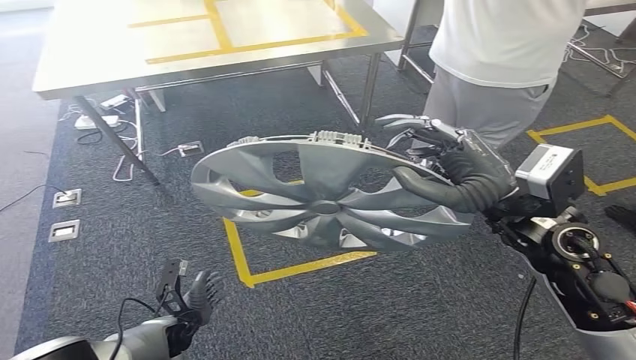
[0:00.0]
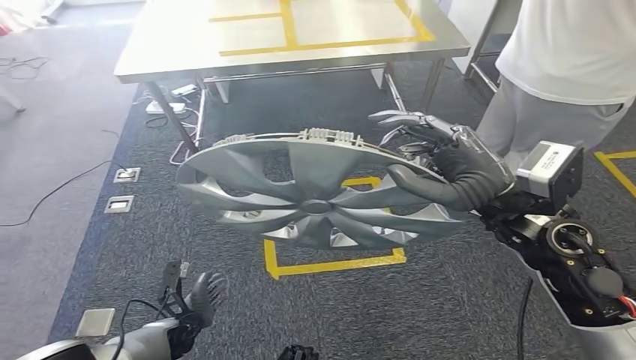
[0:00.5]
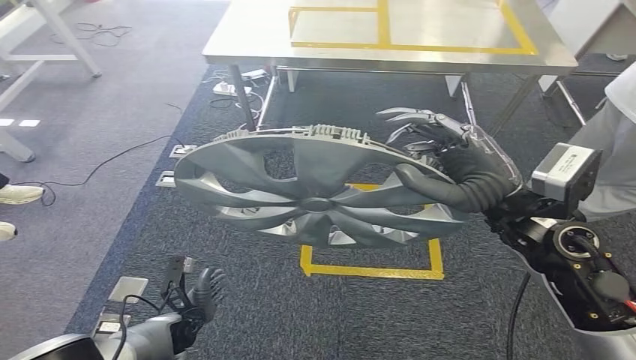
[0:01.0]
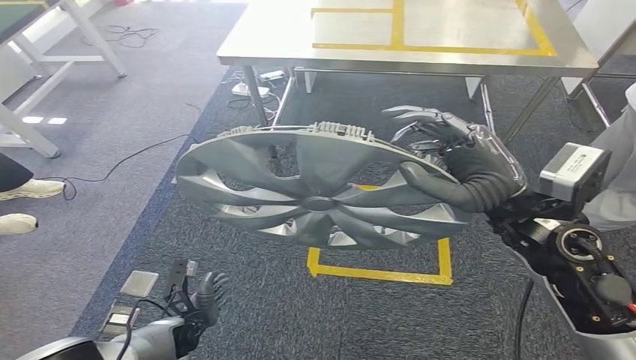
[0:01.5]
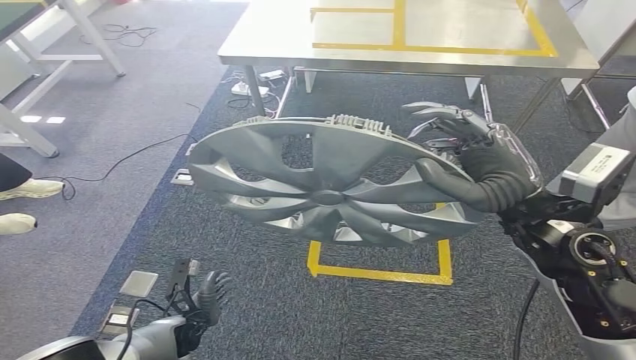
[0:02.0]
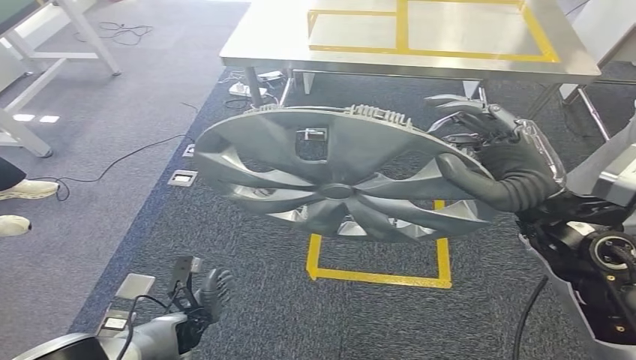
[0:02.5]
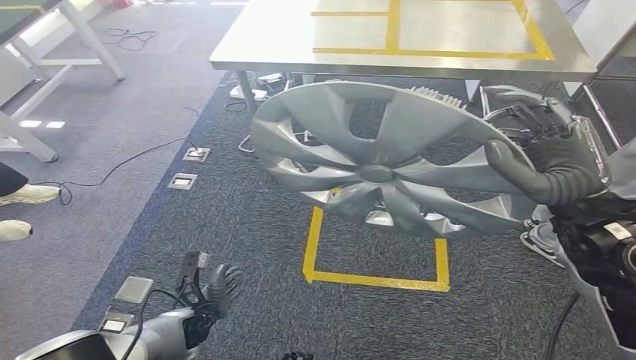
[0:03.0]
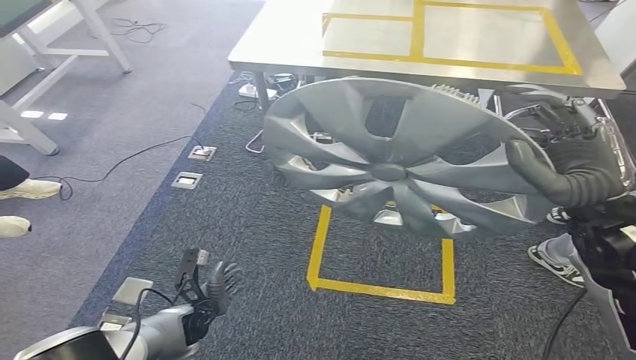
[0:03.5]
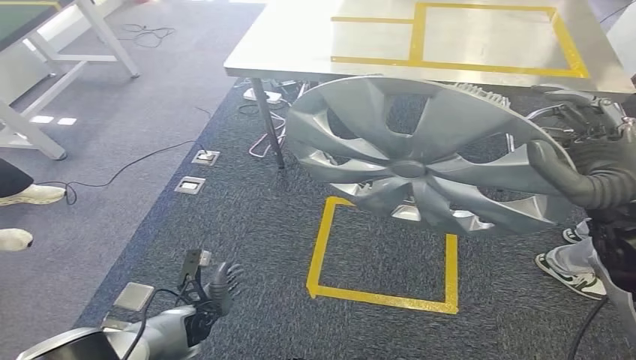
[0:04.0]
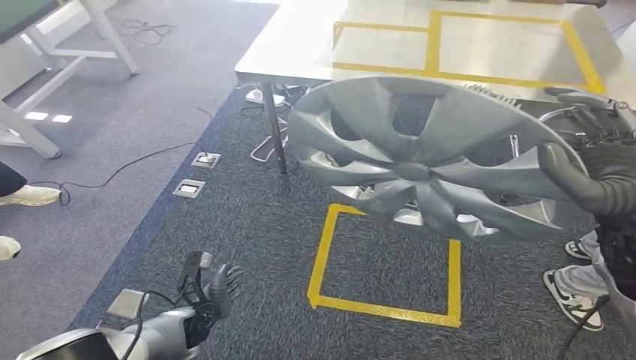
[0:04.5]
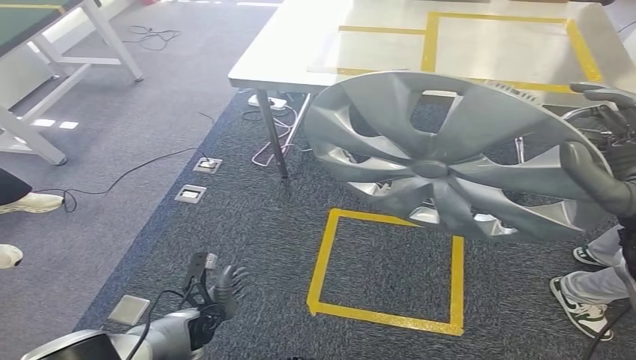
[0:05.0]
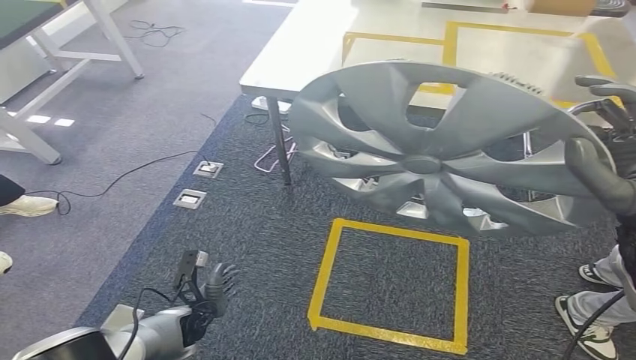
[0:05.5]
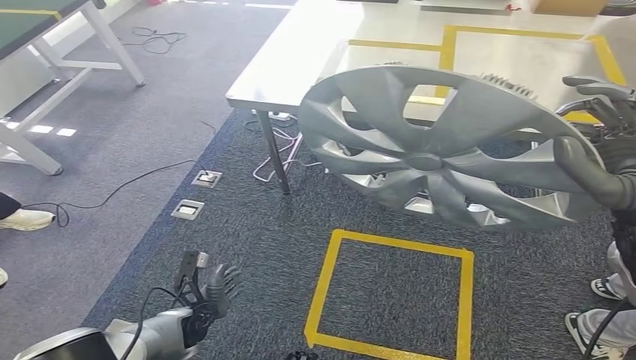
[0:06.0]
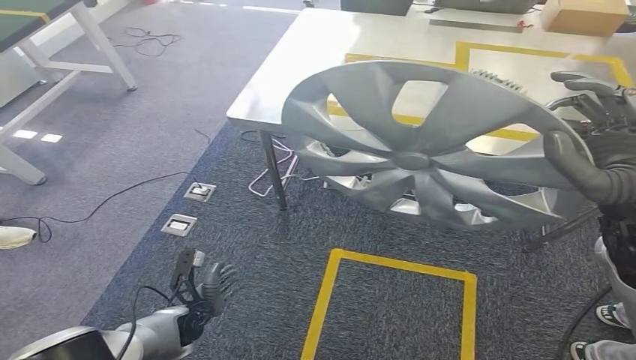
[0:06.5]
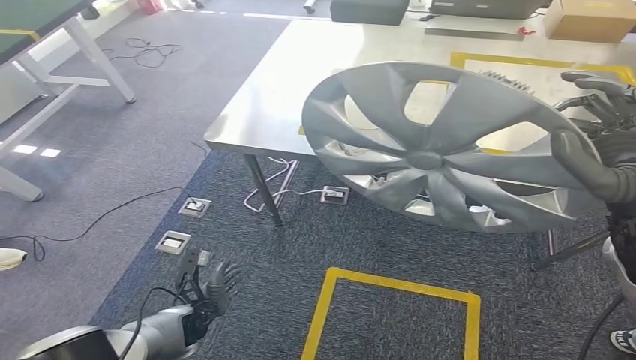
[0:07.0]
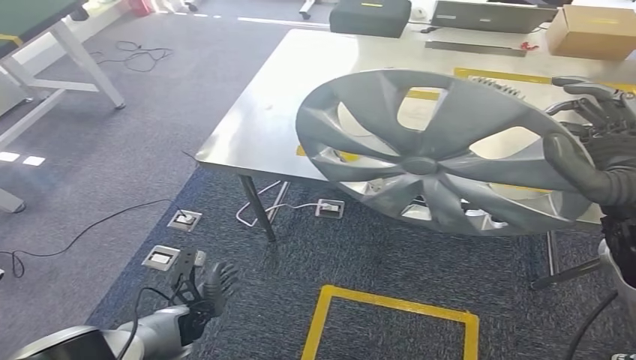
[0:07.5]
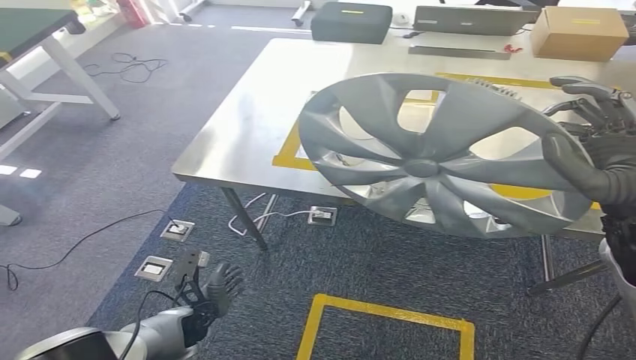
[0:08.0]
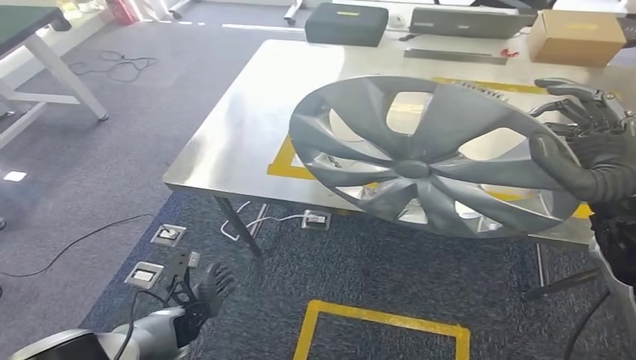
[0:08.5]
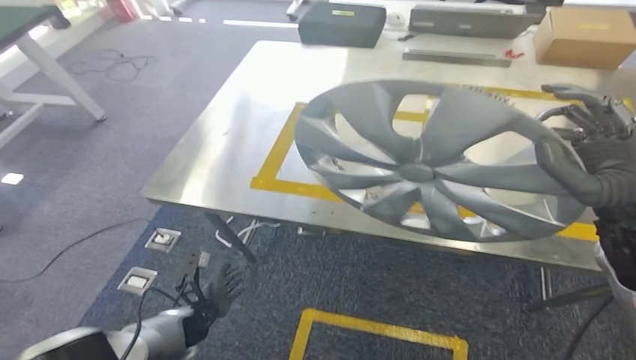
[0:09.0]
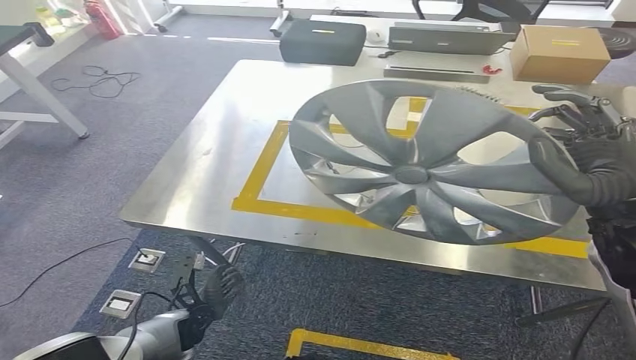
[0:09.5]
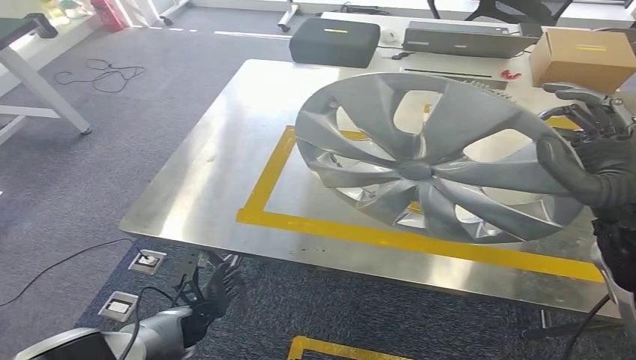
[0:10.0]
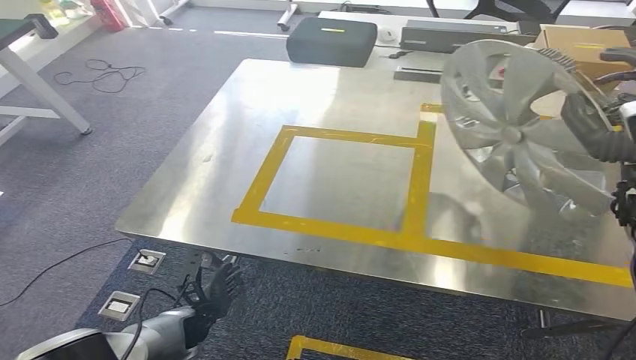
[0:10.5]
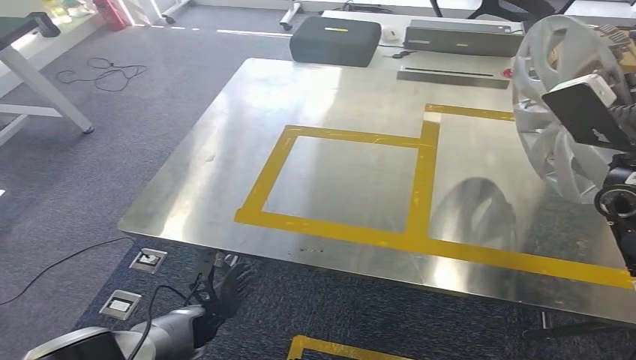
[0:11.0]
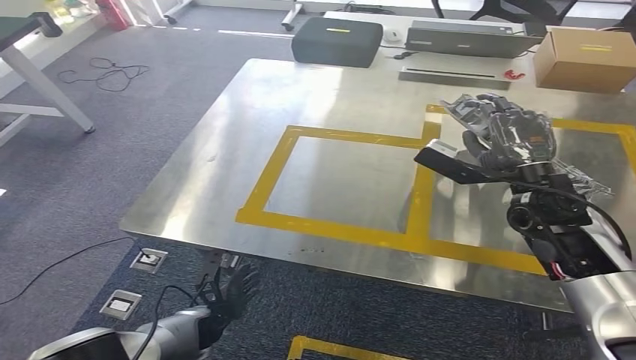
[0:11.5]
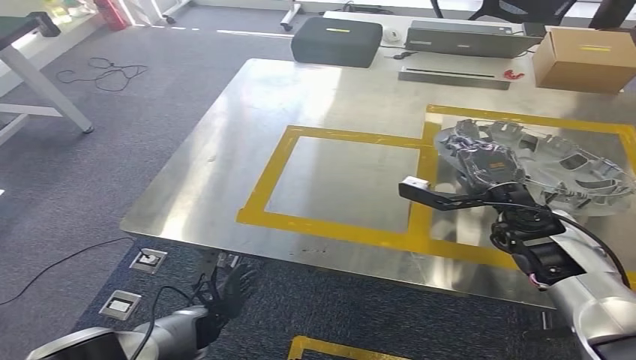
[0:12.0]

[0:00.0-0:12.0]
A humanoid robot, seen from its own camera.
Step, 0:00.0 to 0:10.0: Move the small component to the workbench.

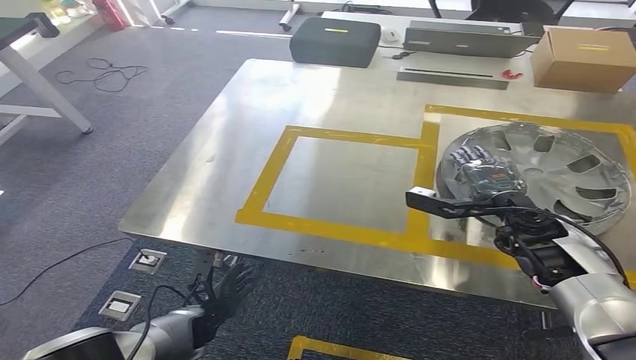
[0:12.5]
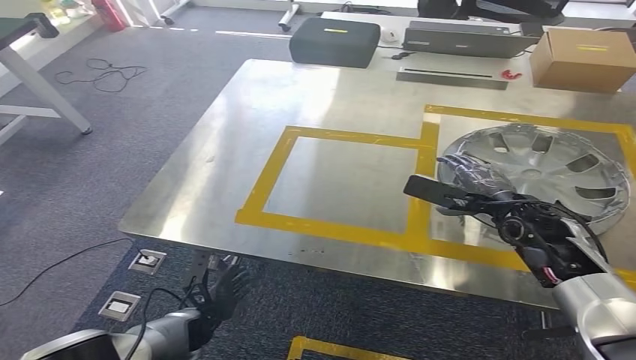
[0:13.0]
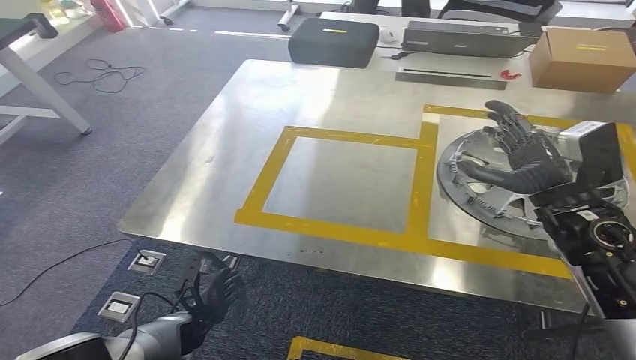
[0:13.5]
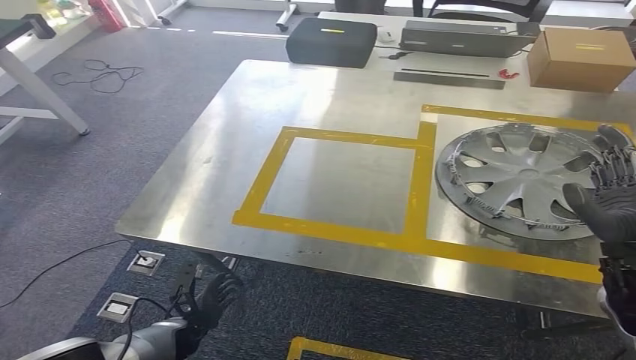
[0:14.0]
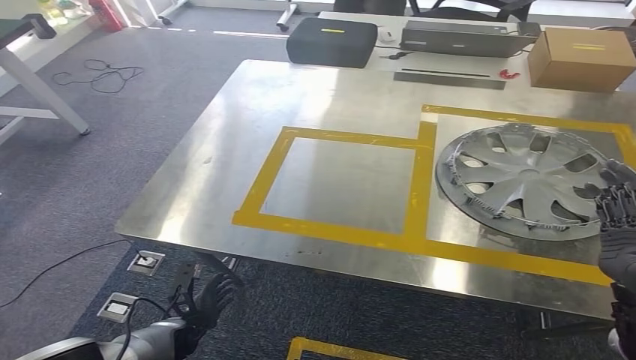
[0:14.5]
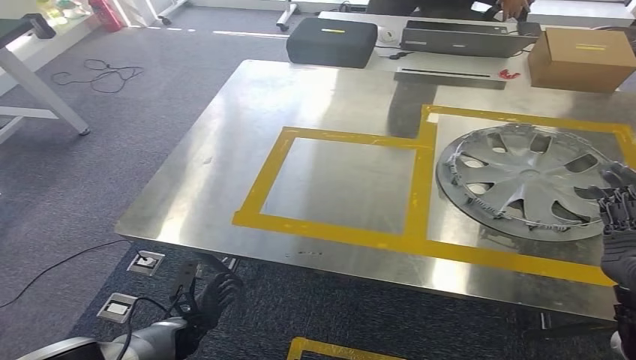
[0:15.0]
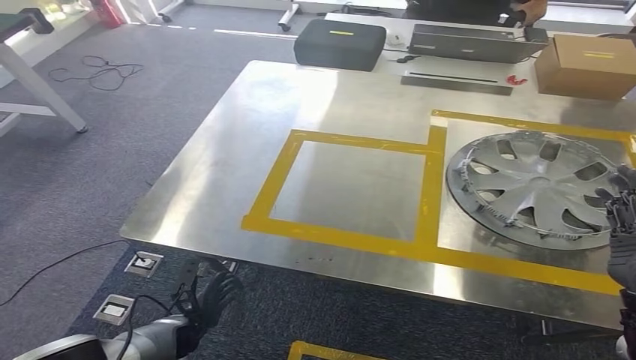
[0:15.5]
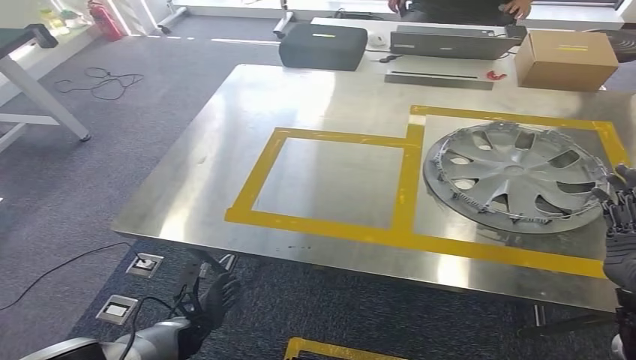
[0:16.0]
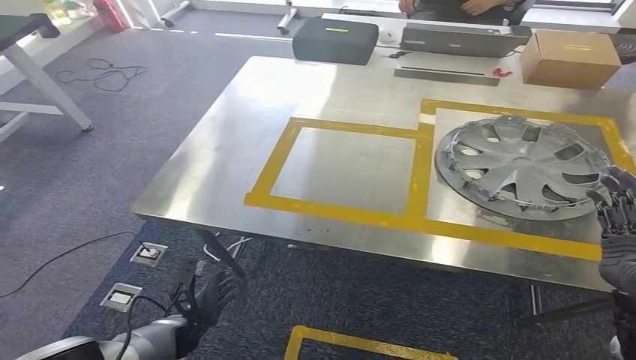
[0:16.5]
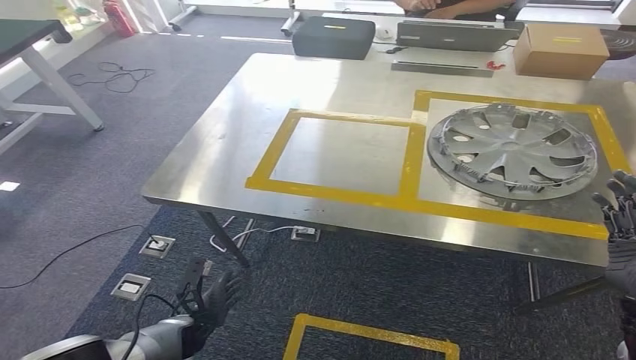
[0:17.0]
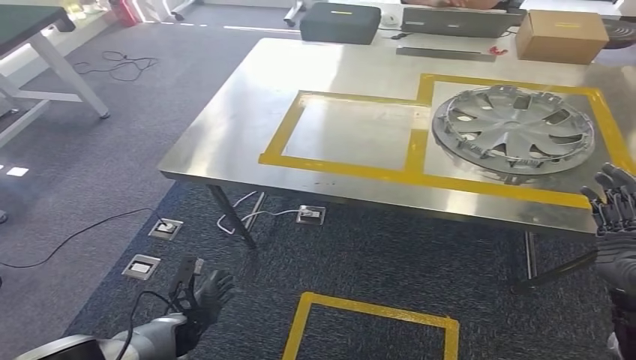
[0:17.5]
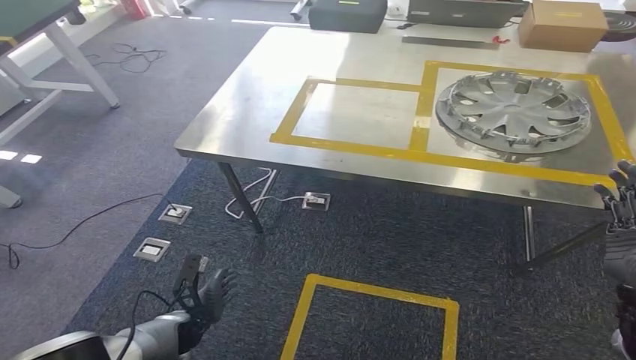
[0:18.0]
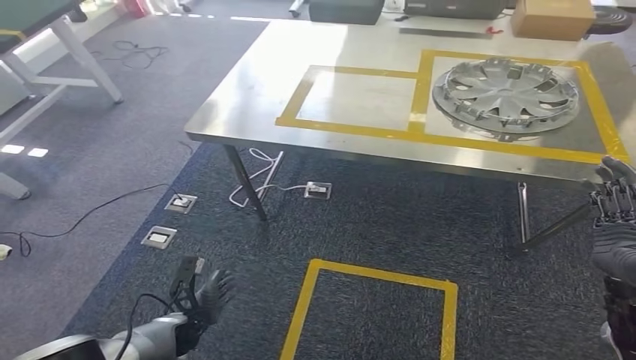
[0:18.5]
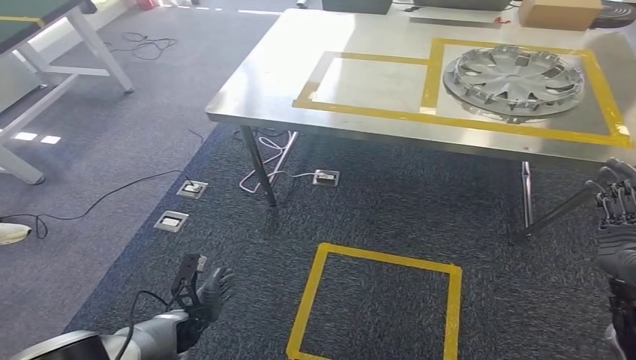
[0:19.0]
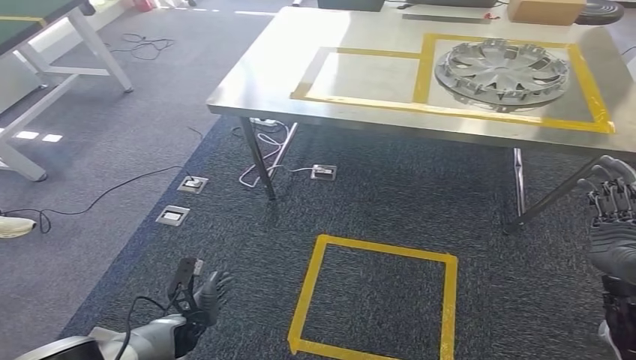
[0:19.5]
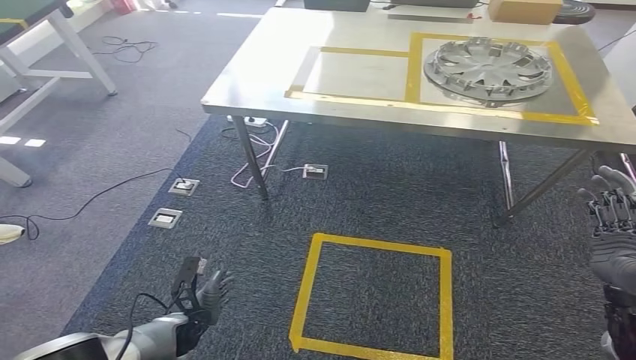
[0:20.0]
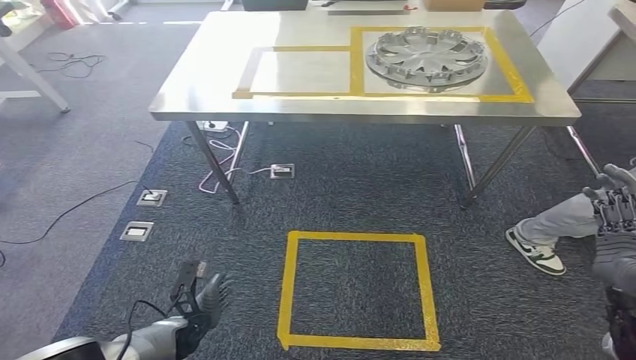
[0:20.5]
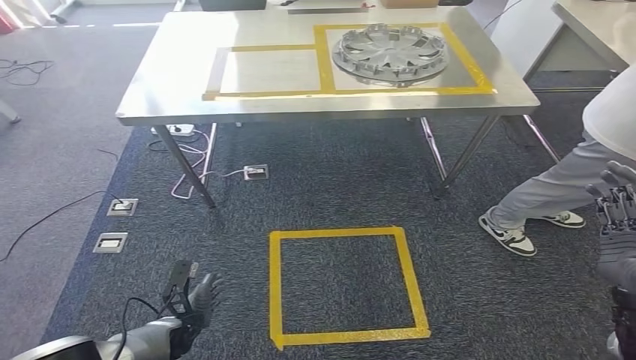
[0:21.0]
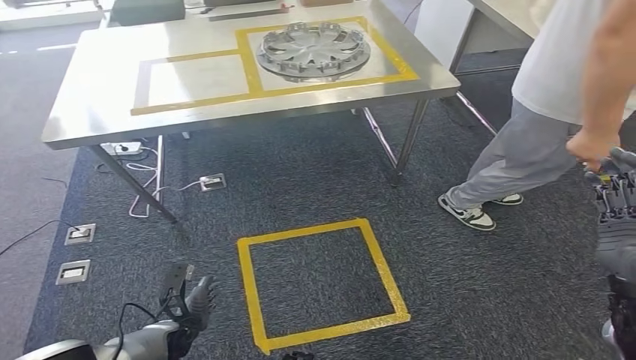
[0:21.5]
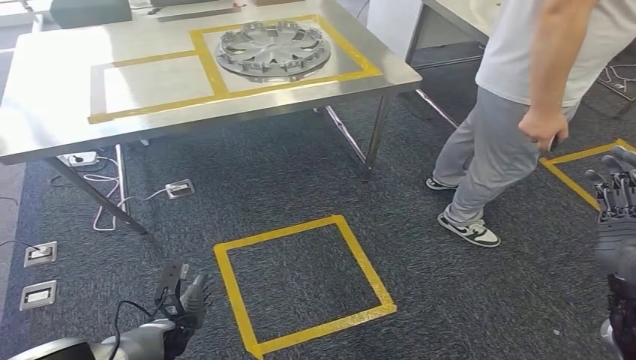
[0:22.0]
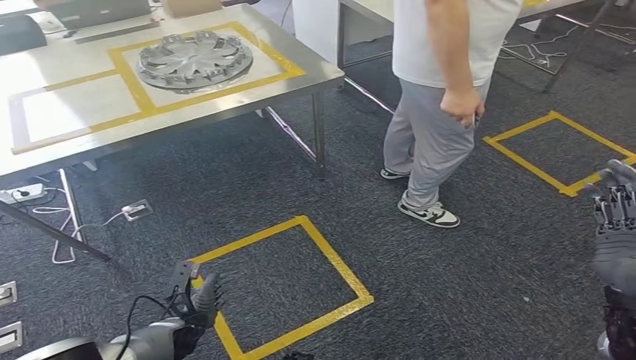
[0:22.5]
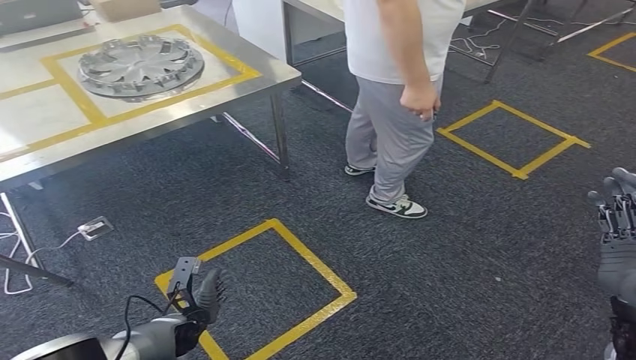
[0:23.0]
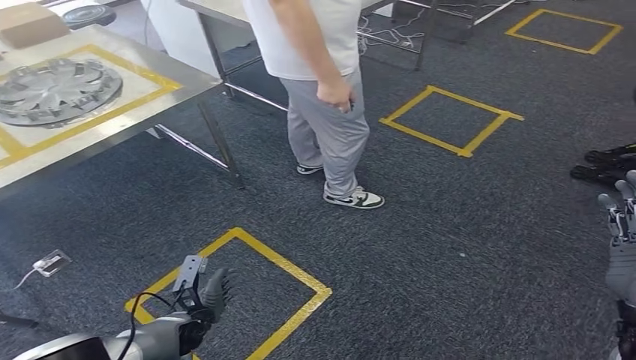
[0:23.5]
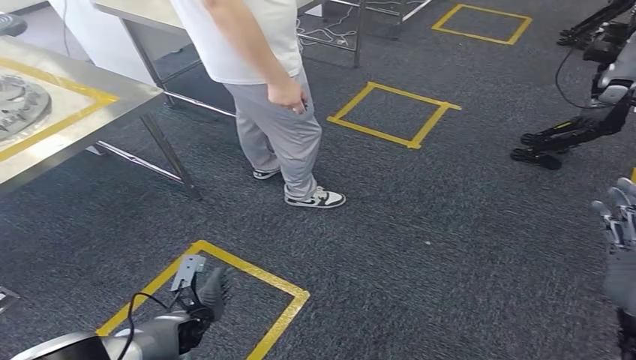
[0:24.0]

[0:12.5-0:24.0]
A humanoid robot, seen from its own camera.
0:12.5 to 0:14.5: The right hand moves backward and to the right, approximately 20 cm.
